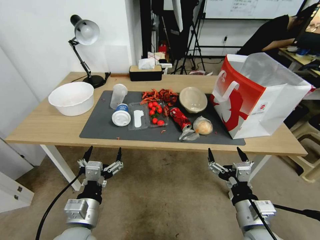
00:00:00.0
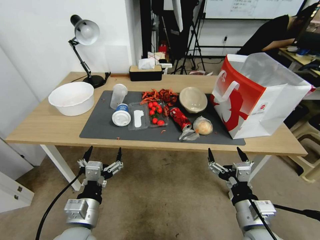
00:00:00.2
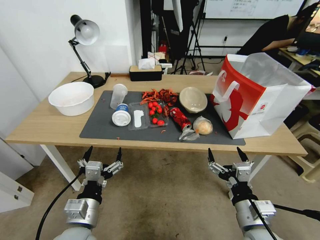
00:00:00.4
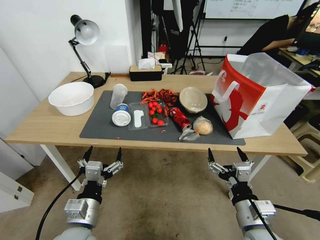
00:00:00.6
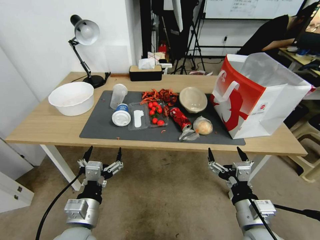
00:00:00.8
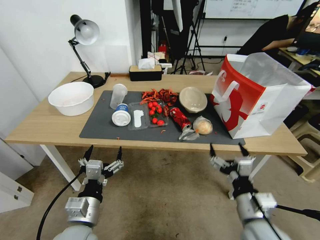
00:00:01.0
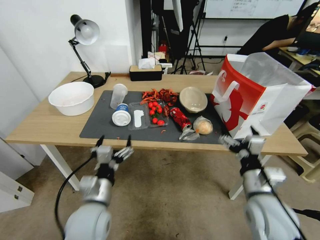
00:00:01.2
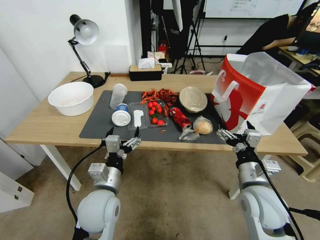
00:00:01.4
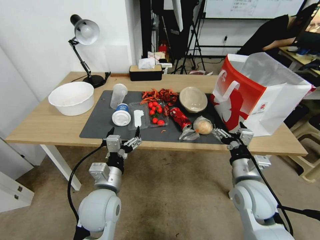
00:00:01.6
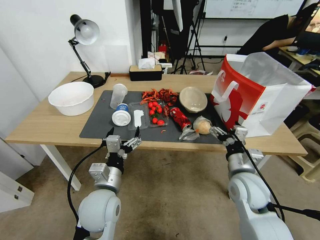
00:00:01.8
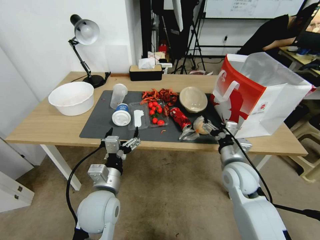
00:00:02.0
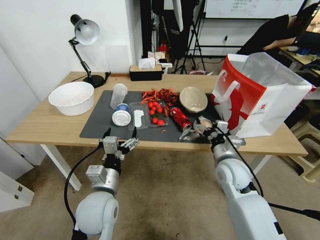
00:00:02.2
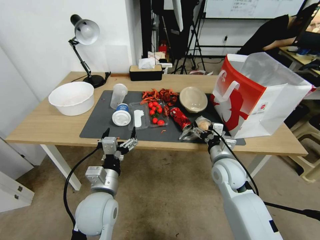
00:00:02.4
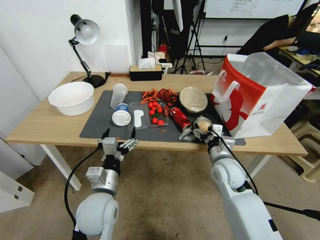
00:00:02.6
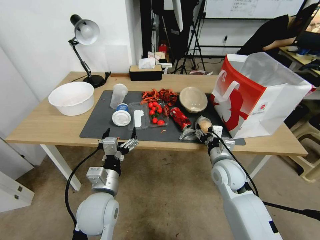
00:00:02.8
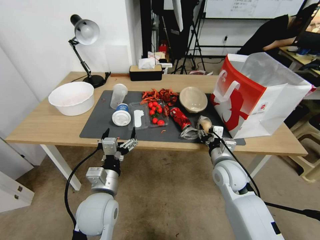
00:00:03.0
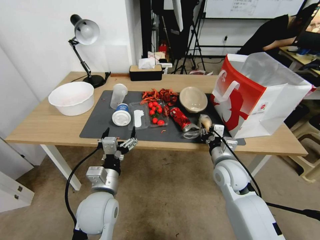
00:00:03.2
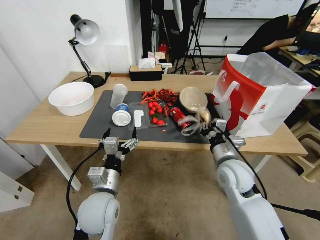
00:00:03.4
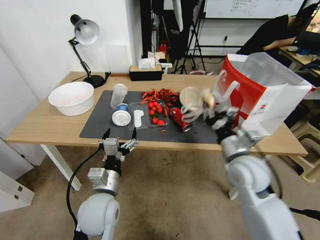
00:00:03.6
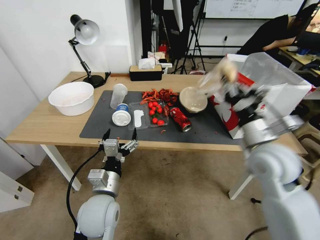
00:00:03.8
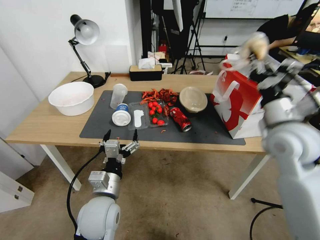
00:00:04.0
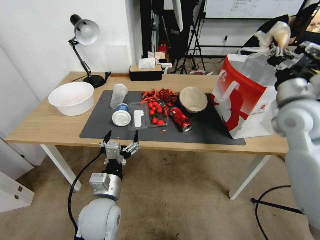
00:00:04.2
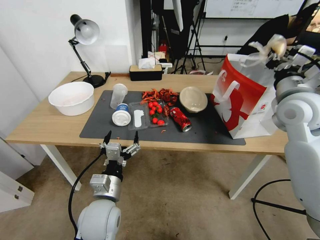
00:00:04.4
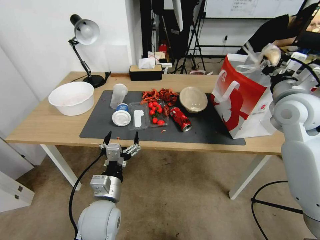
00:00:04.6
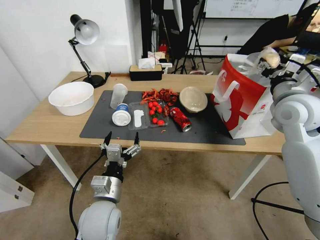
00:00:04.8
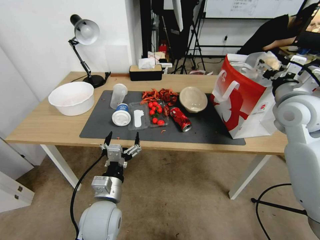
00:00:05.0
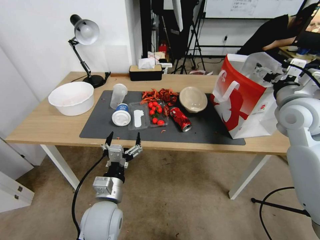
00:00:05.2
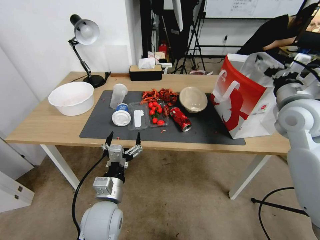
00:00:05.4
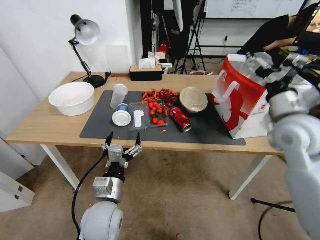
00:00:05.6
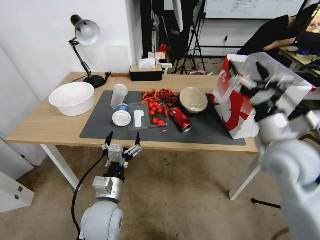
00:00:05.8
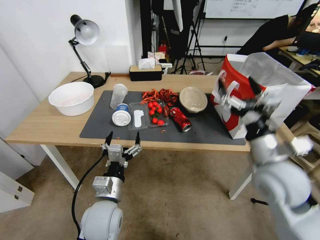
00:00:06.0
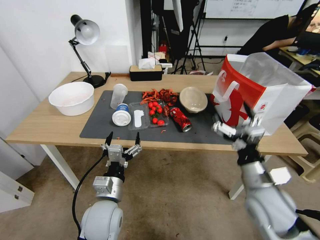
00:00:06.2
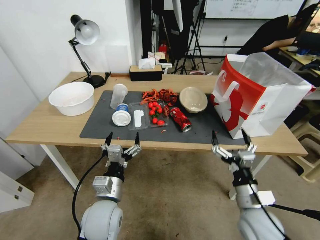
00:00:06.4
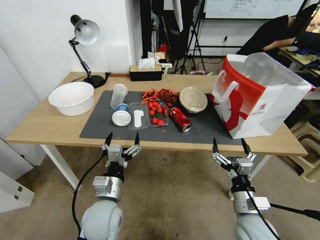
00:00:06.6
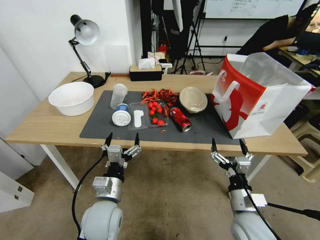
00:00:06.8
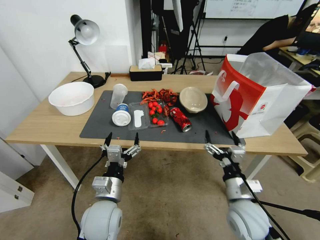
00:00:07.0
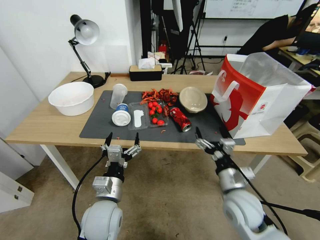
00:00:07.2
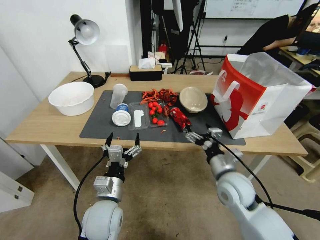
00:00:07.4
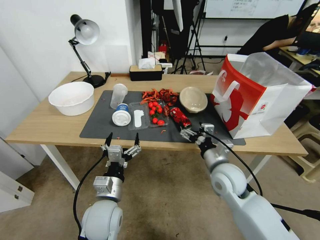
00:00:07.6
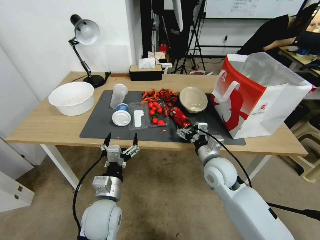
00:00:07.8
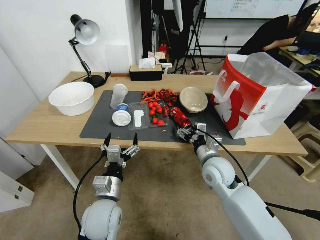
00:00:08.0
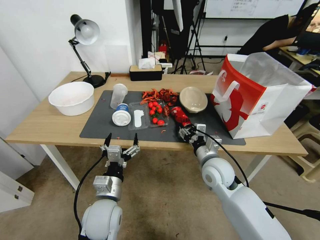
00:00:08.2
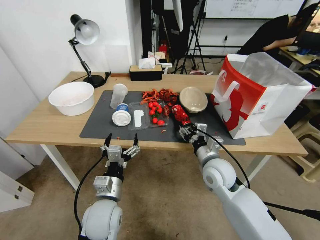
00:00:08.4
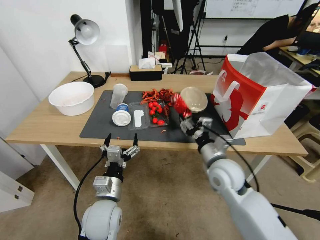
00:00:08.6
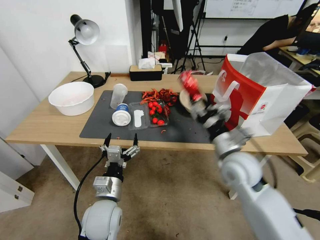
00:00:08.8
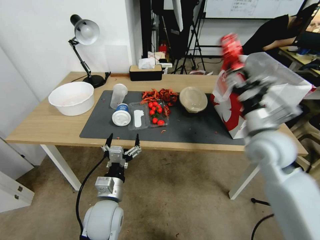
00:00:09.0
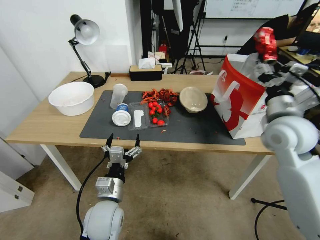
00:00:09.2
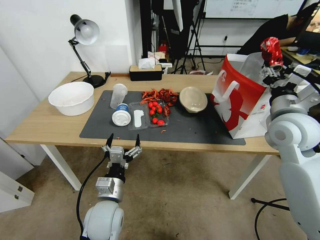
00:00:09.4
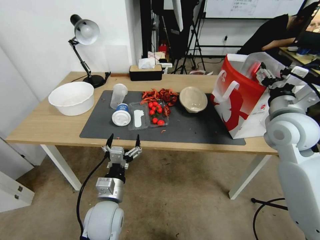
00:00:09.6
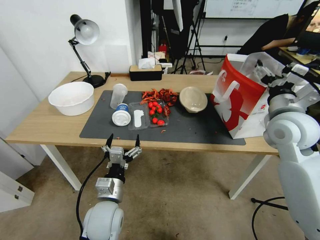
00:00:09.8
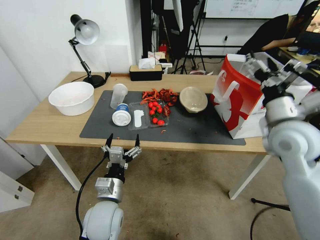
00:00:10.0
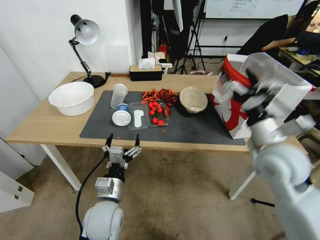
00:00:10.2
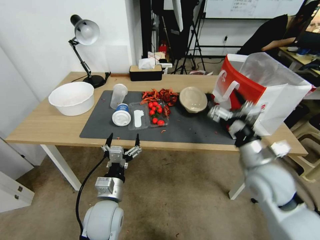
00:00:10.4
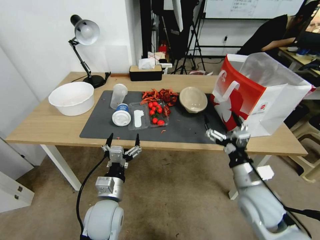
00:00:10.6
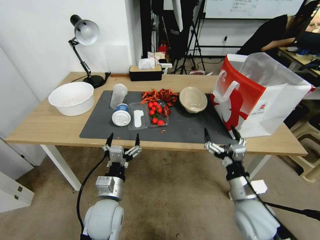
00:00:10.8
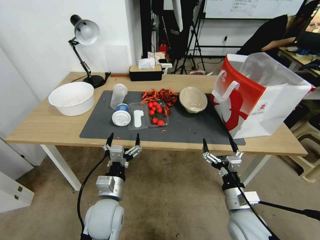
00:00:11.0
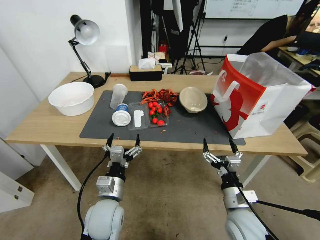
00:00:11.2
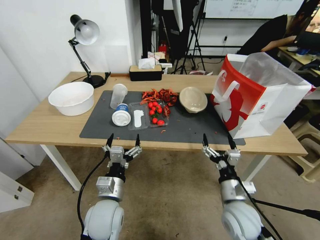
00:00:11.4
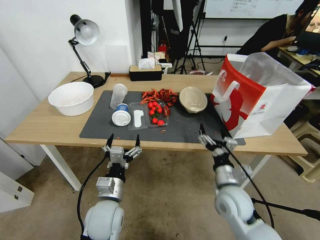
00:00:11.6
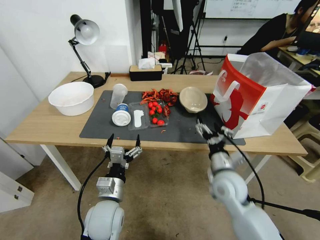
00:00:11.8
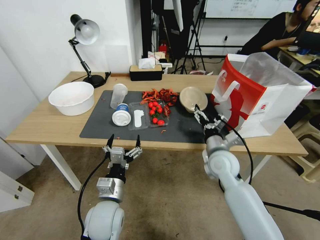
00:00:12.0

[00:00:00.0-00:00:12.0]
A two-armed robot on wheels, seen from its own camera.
00:00:01.6 to 00:00:03.0: The right gripper is displaced forward by about 10 cm, and closes.
00:00:03.0 to 00:00:04.4: The right gripper travels upward and to the right by roughly 25 cm.
00:00:04.4 to 00:00:06.0: The right gripper goes approximately 15 cm backward, downward and to the left, and opens its fingers.
00:00:06.0 to 00:00:07.6: The right gripper goes roughly 15 cm downward and to the left.
00:00:07.6 to 00:00:09.0: The right gripper moves upward and to the right, some 15 cm, and closes.
00:00:09.0 to 00:00:10.4: The right gripper moves downward and backward, some 10 cm, and opens its fingers.
00:00:10.4 to 00:00:12.0: The right gripper travels downward and to the left by some 10 cm.

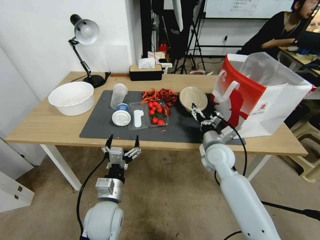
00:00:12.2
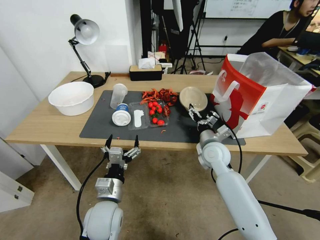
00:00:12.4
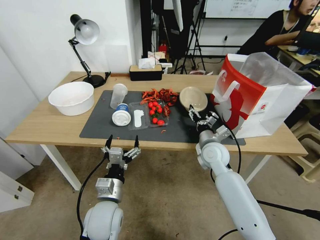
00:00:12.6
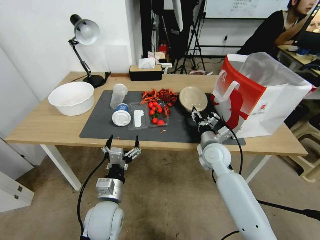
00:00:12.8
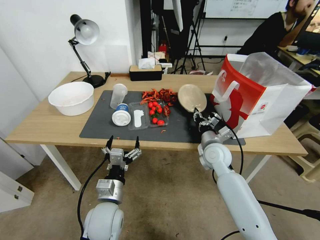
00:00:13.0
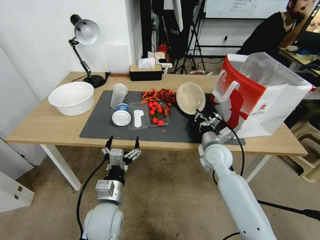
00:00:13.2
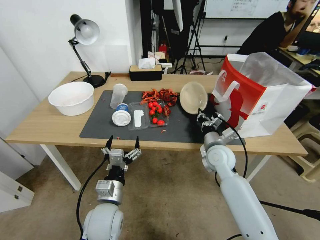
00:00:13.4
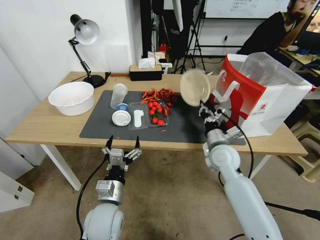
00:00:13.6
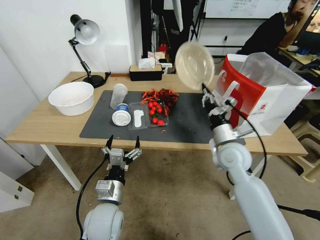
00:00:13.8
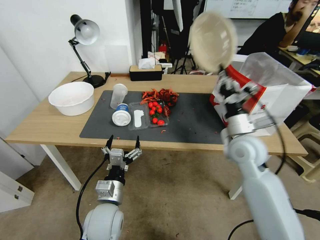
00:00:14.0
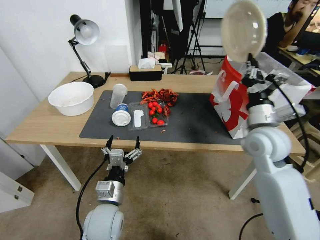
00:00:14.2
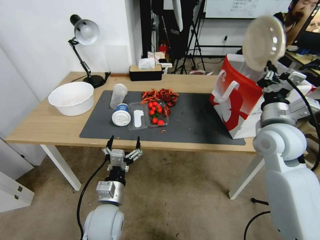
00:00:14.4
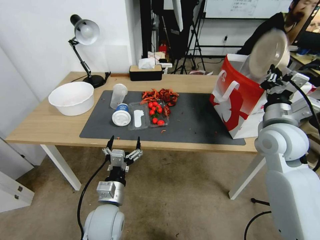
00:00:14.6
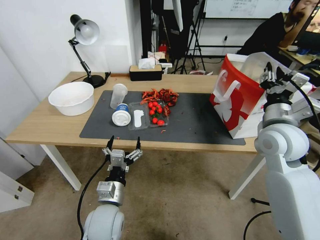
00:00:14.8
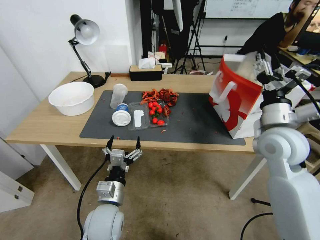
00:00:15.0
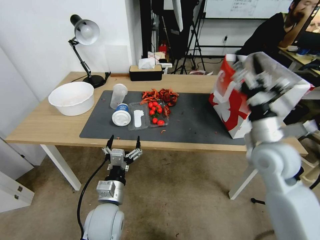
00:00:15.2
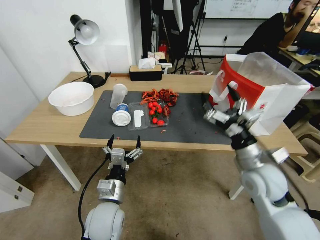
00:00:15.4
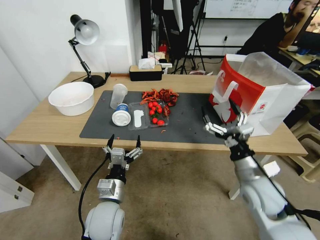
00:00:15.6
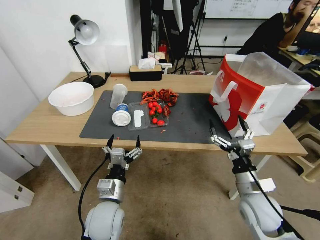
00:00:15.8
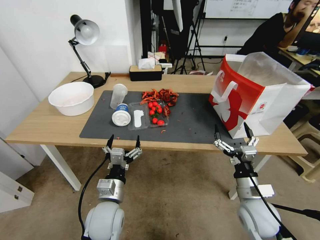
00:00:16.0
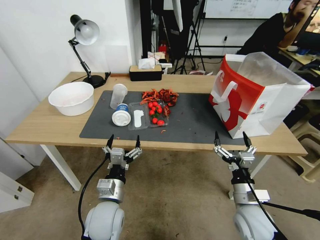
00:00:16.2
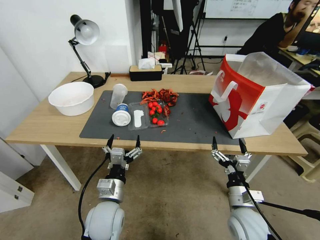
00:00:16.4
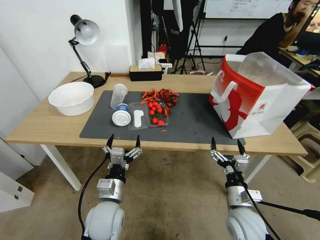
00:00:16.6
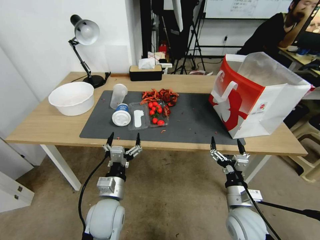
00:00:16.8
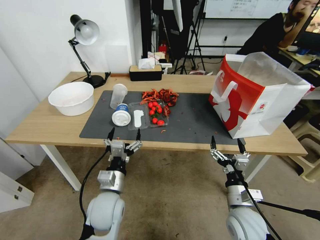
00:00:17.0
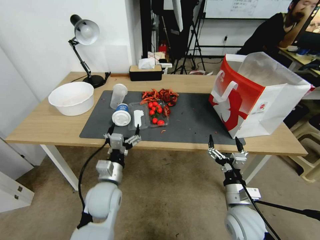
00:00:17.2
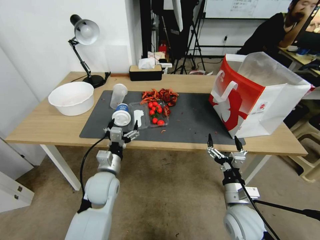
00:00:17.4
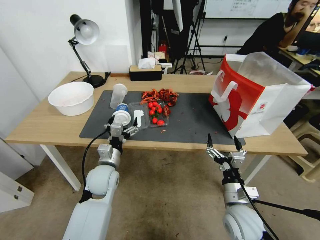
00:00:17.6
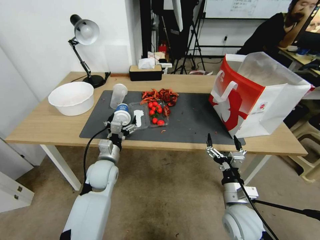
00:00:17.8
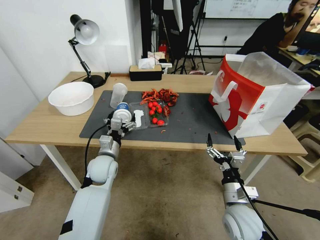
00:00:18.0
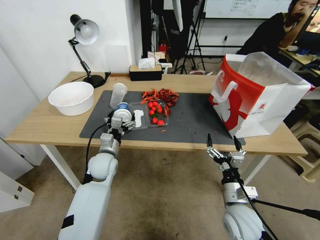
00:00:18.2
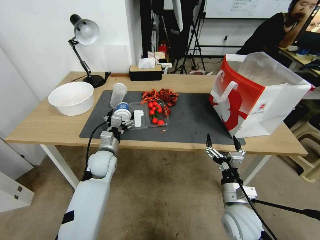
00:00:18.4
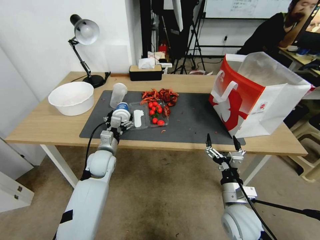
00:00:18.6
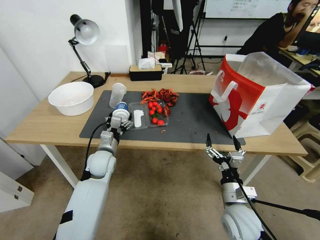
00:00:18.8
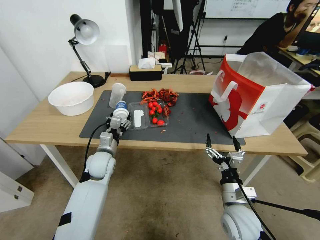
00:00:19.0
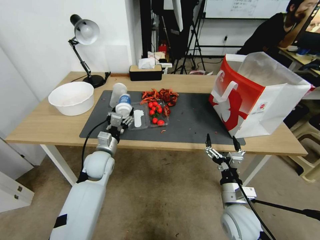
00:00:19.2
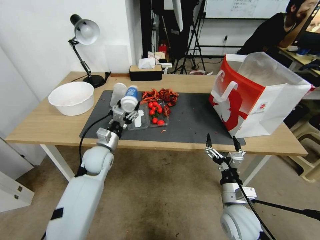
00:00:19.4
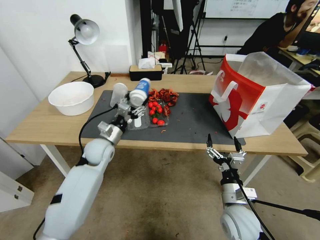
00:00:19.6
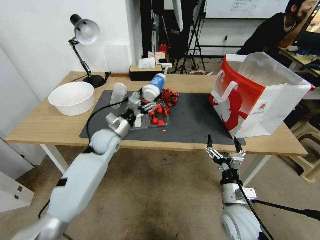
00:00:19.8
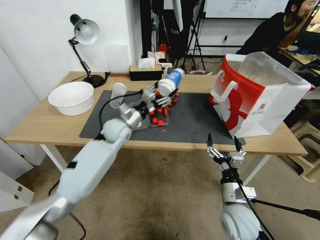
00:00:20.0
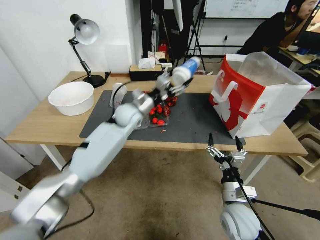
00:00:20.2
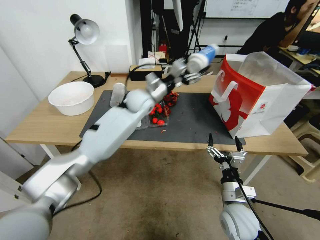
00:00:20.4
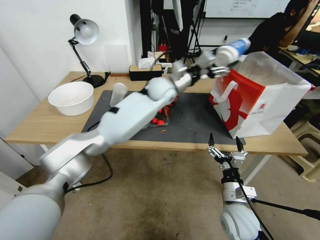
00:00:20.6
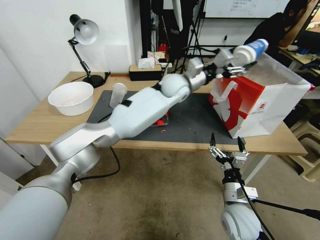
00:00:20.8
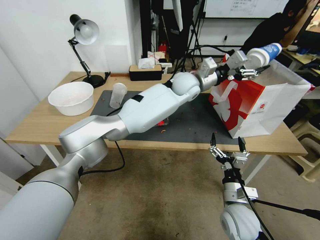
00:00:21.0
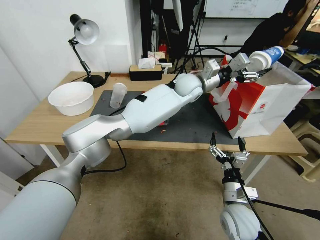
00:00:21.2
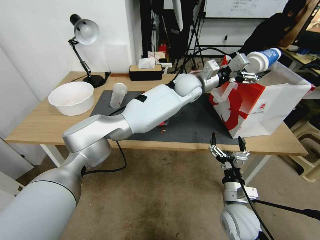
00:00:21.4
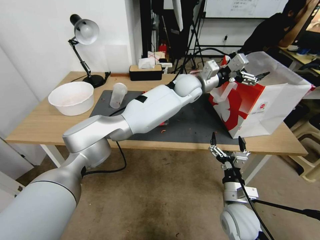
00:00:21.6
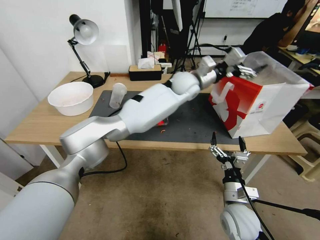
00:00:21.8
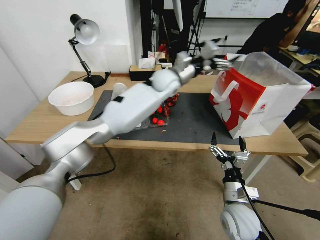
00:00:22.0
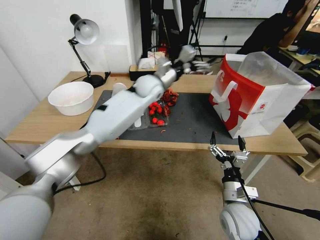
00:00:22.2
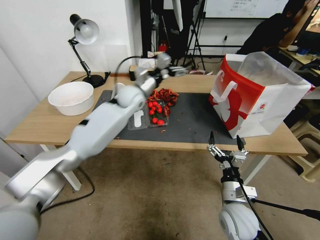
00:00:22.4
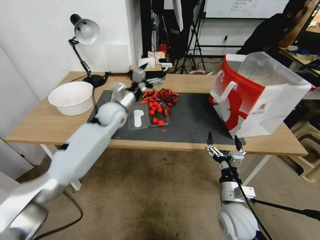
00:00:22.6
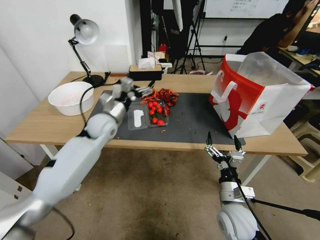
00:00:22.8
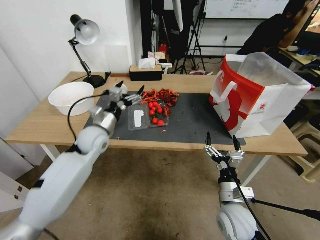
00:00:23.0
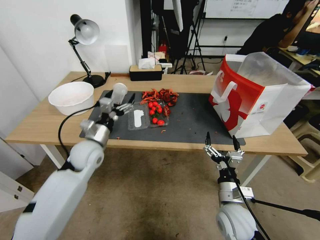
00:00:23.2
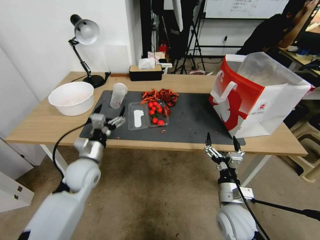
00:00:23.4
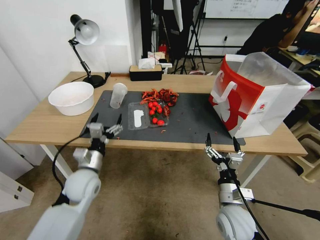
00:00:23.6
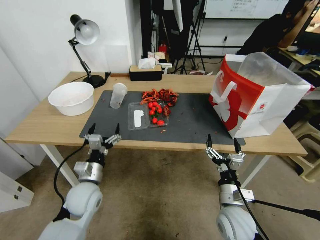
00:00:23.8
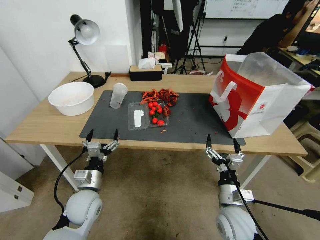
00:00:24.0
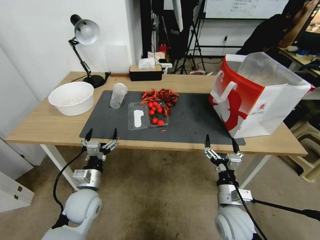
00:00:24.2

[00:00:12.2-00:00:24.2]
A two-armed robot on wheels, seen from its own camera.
00:00:12.2 to 00:00:13.8: The right gripper closes up.
00:00:13.8 to 00:00:15.2: The right gripper moves upward and to the right, roughly 15 cm, and opens its fingers.
00:00:15.2 to 00:00:16.6: The right gripper goes some 25 cm downward and backward.
00:00:16.6 to 00:00:18.2: The left gripper shifts some 15 cm forward.
00:00:18.2 to 00:00:19.8: The left gripper travels forward by approximately 10 cm, and closes up.
00:00:19.8 to 00:00:21.2: The left gripper heads to the right and upward, covering some 35 cm.
00:00:21.2 to 00:00:22.6: The left gripper goes some 25 cm to the left, and opens up.
00:00:22.6 to 00:00:24.2: The left gripper goes roughly 30 cm backward and downward.
